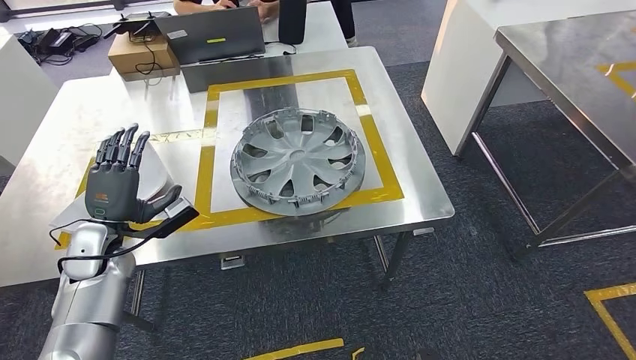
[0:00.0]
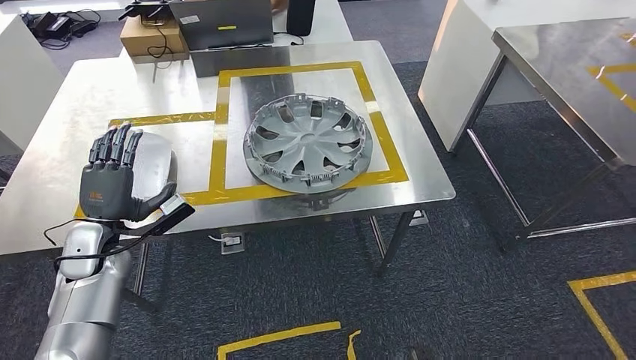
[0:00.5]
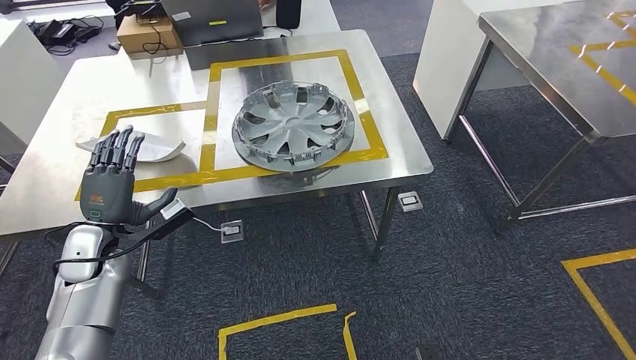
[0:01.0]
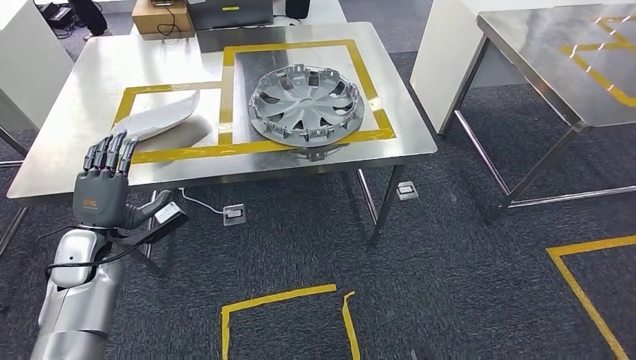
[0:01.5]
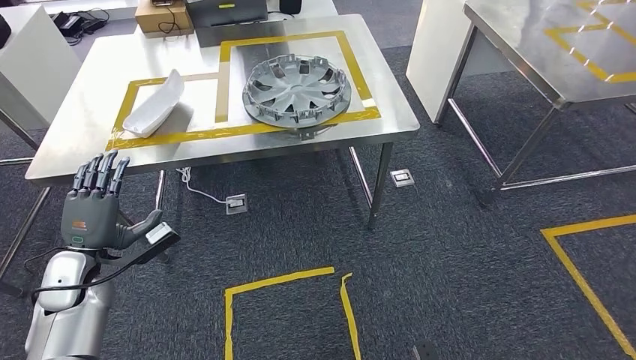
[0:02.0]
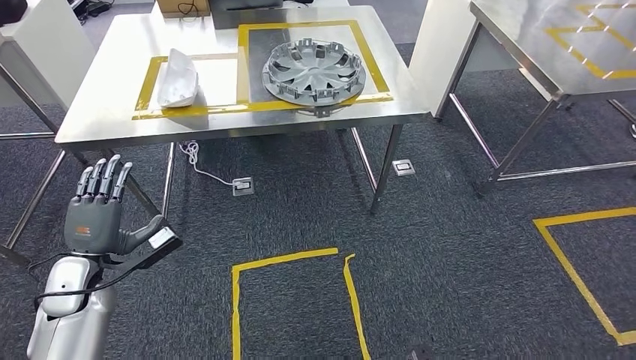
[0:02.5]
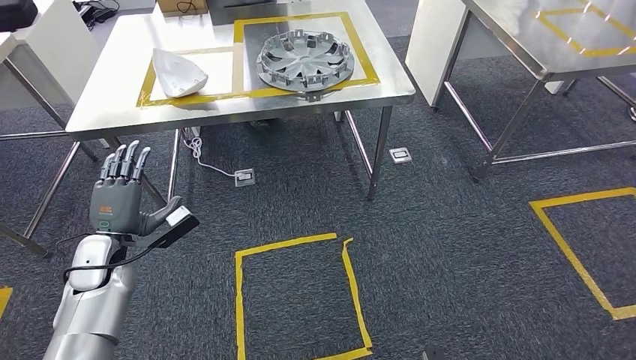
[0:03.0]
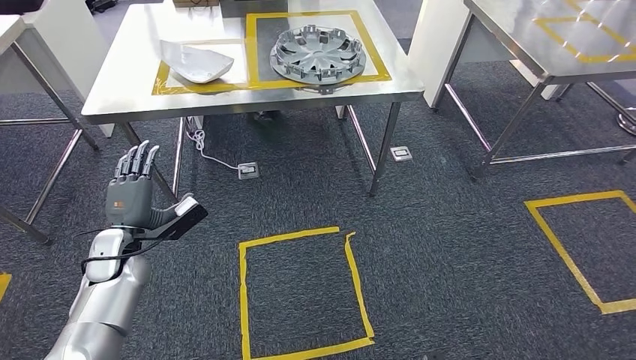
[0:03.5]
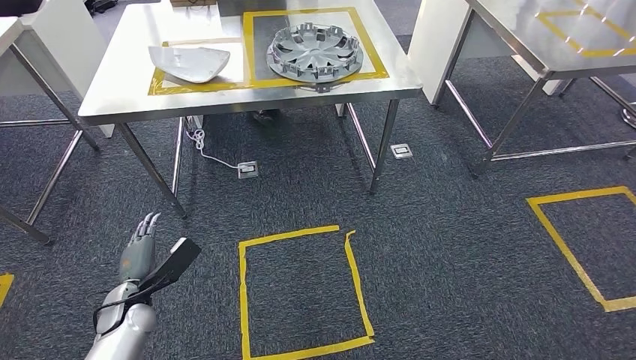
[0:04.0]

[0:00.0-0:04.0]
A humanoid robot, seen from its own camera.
Step, 0:00.0 to 0:04.0: Return to the initial position at the workbench.
